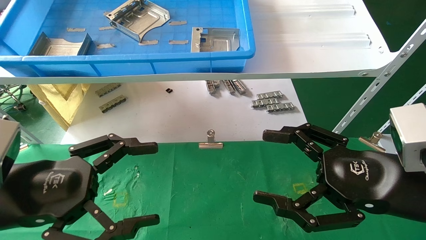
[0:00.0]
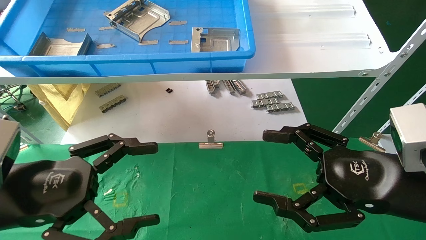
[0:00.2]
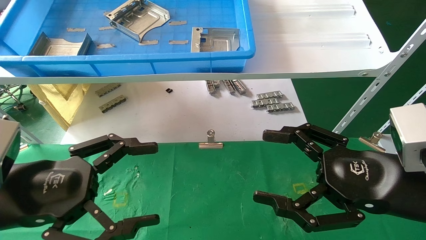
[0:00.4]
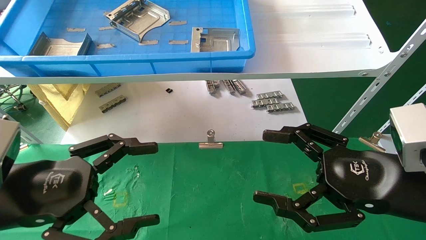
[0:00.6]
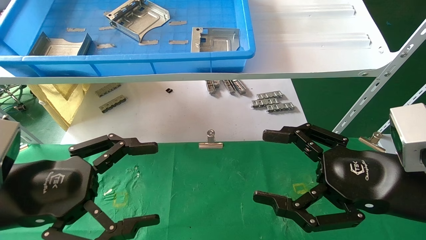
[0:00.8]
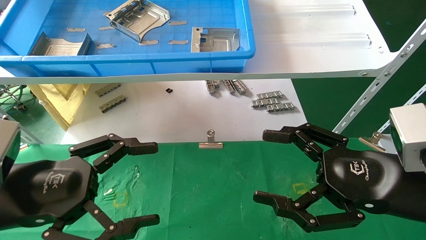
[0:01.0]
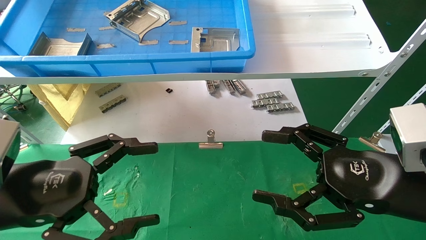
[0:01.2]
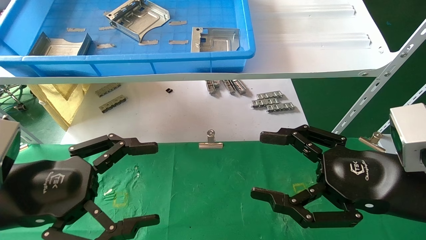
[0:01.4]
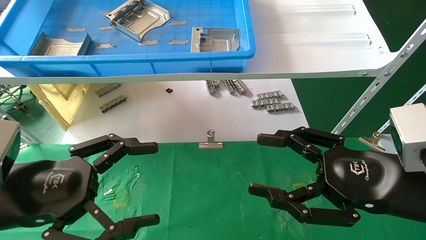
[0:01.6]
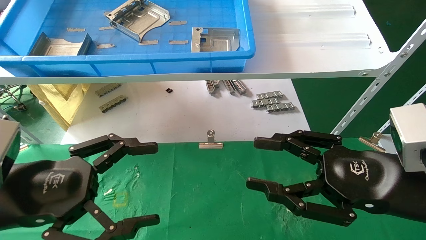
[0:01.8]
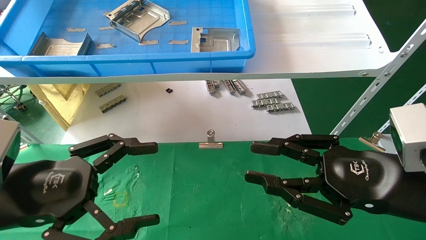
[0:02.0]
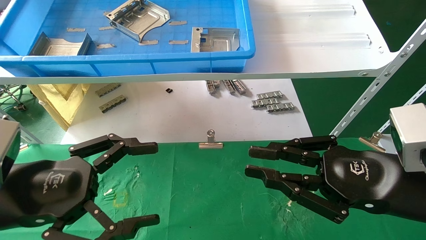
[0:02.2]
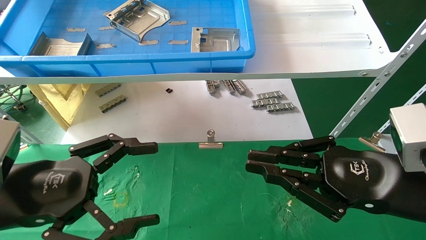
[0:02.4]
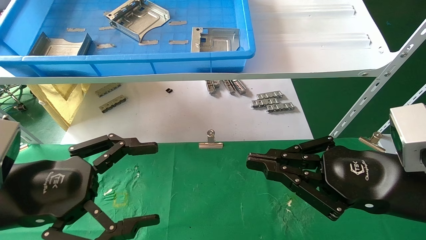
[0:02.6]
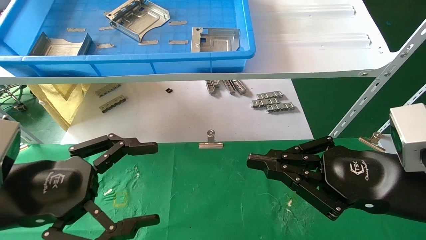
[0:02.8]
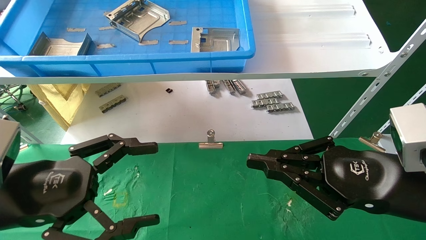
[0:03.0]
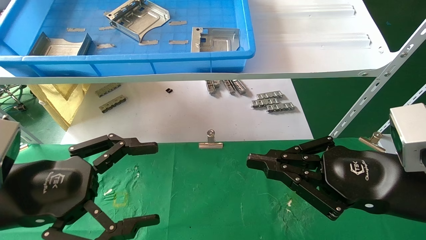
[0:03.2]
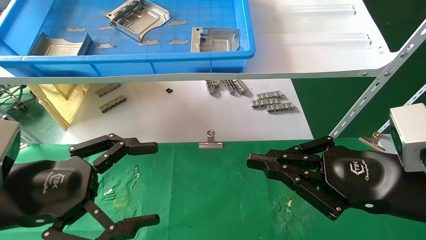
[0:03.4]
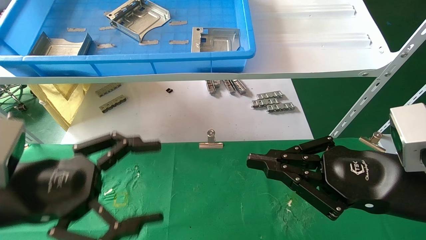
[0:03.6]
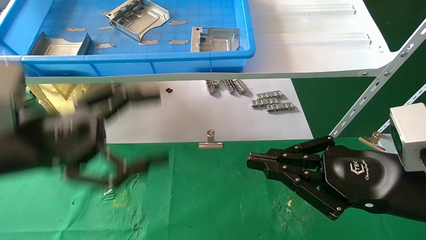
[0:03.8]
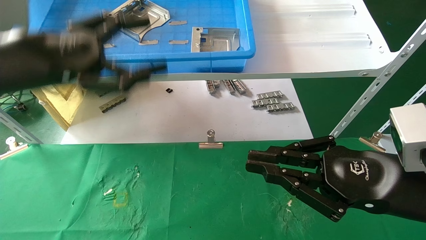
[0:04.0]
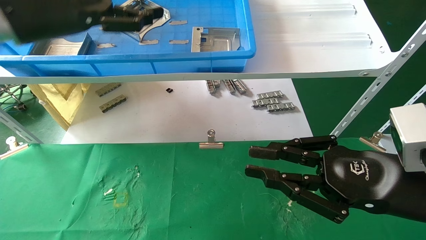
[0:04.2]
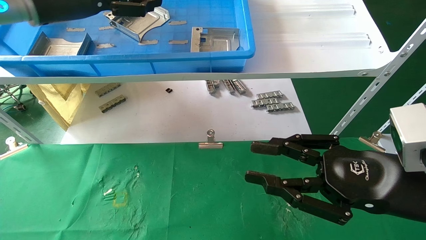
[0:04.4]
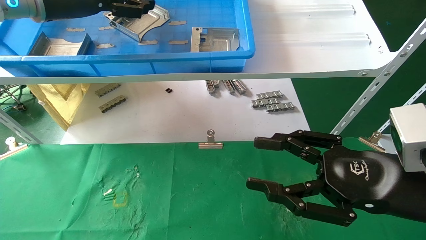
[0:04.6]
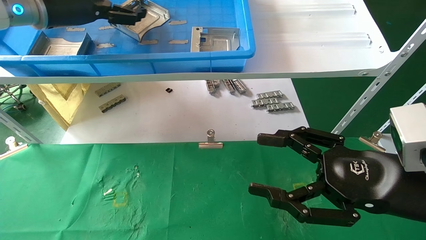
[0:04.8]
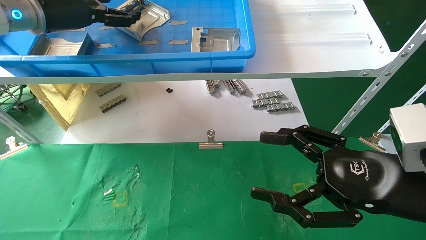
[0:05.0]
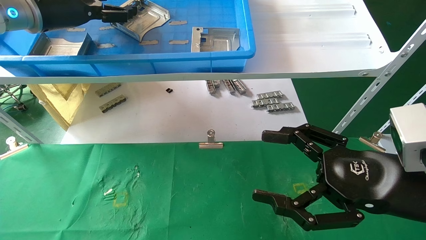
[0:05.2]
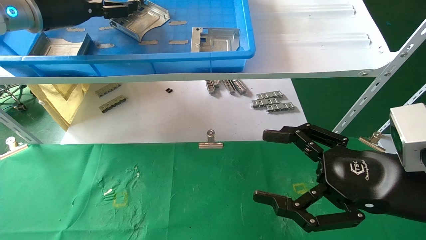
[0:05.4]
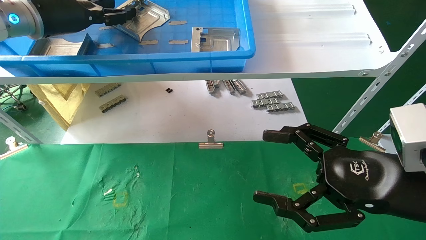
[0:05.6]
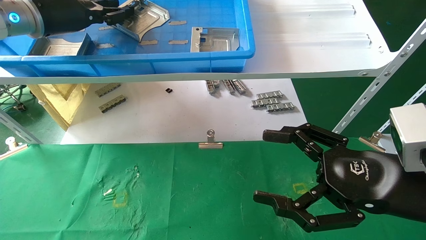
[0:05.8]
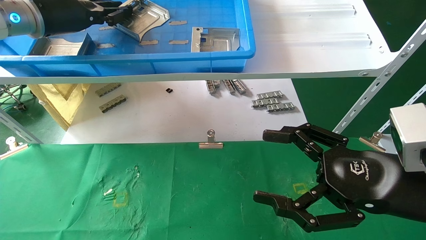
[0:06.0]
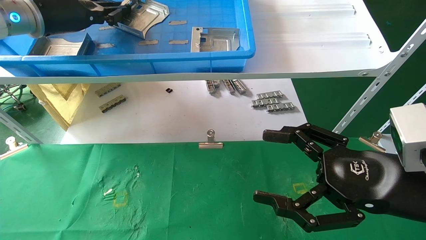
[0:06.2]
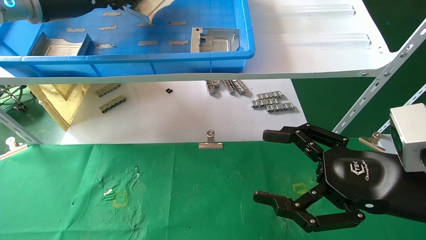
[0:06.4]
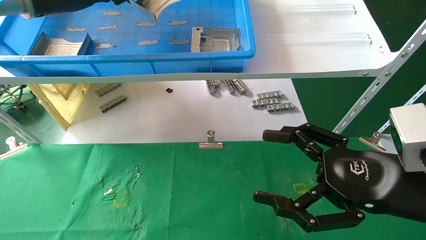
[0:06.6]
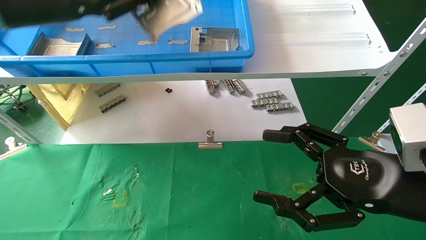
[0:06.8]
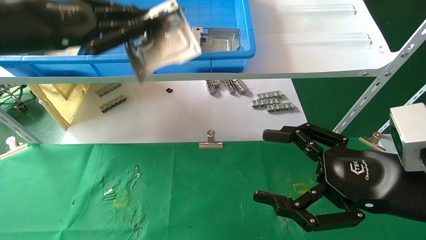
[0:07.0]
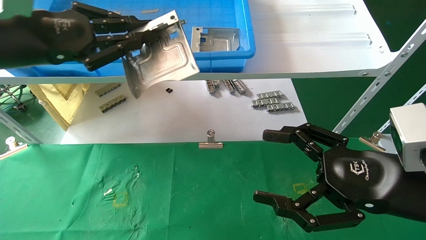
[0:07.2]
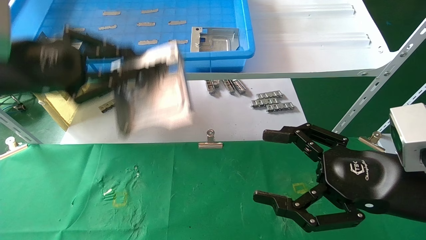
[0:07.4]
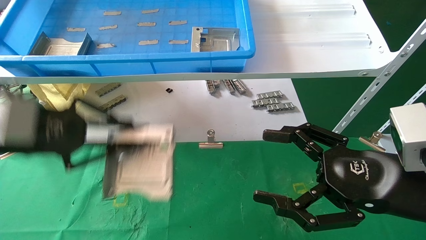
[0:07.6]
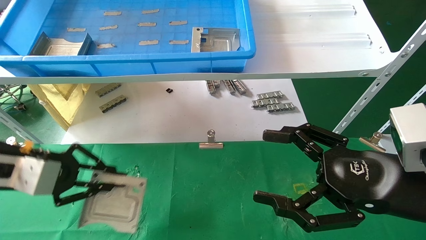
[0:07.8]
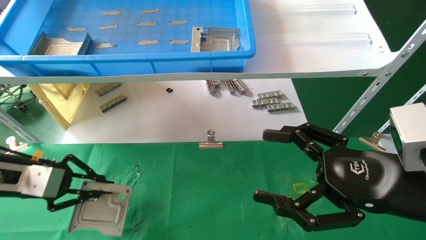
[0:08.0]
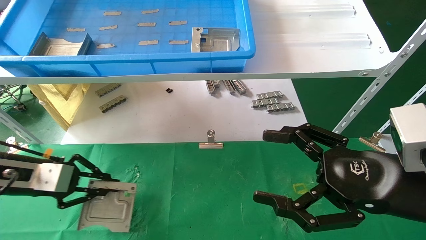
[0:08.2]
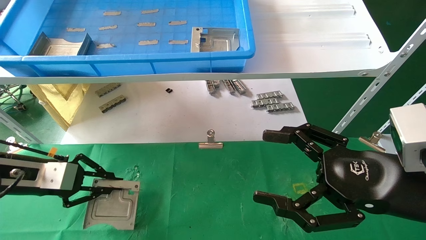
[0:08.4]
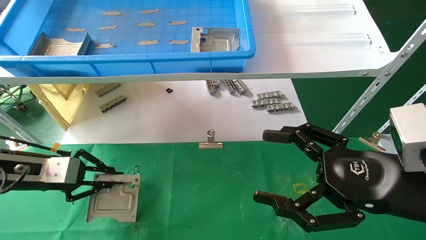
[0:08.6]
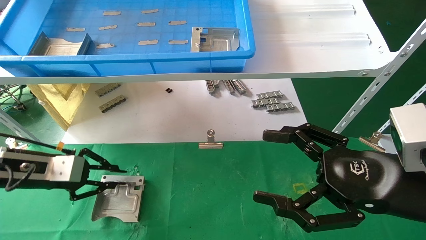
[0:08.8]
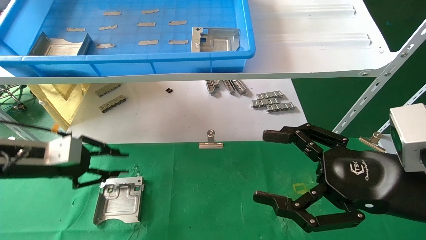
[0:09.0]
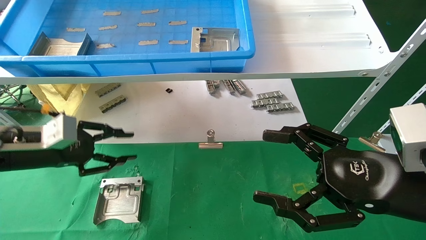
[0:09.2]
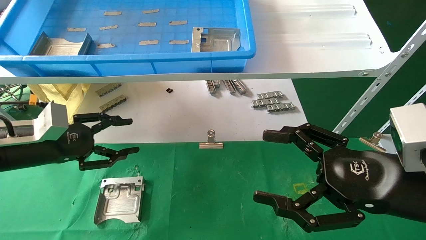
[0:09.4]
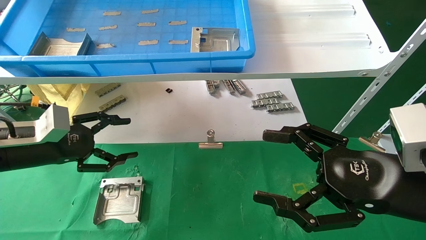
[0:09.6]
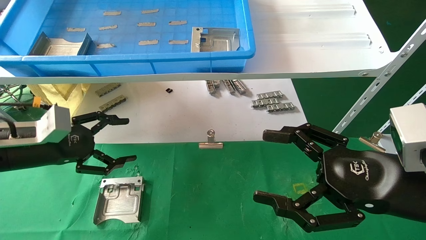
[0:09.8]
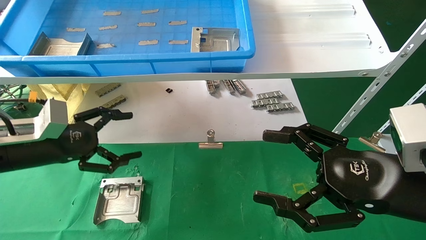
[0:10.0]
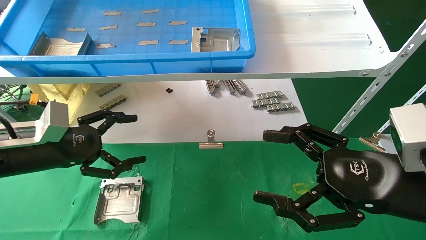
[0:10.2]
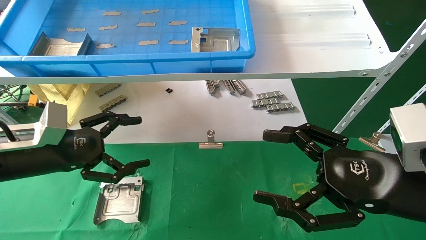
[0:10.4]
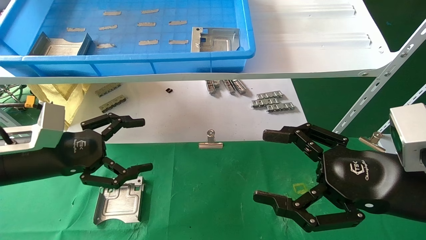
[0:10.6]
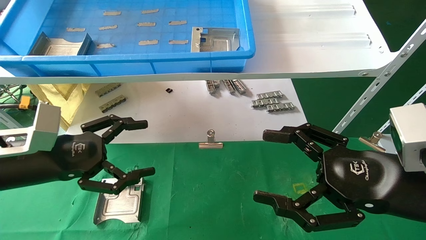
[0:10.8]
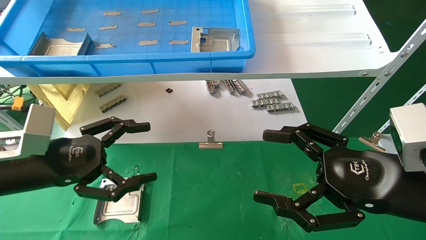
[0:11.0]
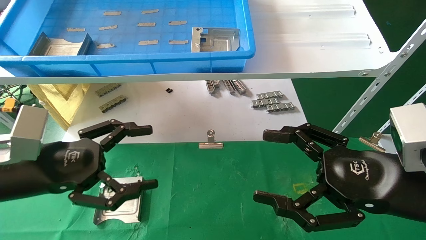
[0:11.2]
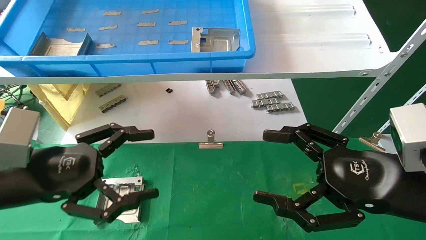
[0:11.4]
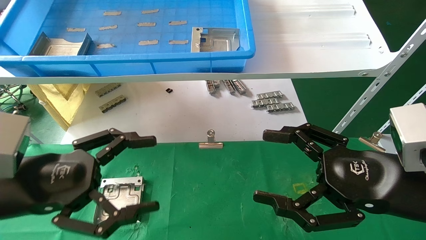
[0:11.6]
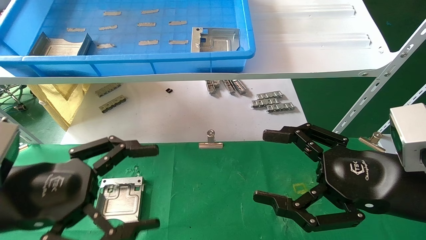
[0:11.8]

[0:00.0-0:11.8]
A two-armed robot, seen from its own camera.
Task of the whole recording: use the mechanical arm to pick up the parts and place them on the table.
Step, 0:03.8 to 0:06.2: Pick up the hard drive bracket from the feeding area.
Step, 0:06.4 to 0:09.0: Place the hard drive bracket into the box.
0:00.0 to 0:01.4: Both grippers stay put.
0:01.4 to 0:03.0: The right gripper closes its fingers.
0:03.0 to 0:04.4: The left gripper is displaced upward and forward by some 30 cm.
0:04.4 to 0:06.0: The right gripper opens up. The left gripper closes its fingers.
0:06.0 to 0:07.4: The left gripper shifts about 15 cm backward and downward.
0:07.4 to 0:08.8: The left gripper goes some 15 cm downward and forward.
0:08.8 to 0:10.4: The left gripper moves roughly 5 cm, and opens up.
0:10.4 to 0:11.8: The left gripper shifts about 10 cm backward.

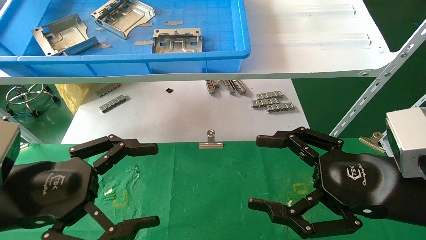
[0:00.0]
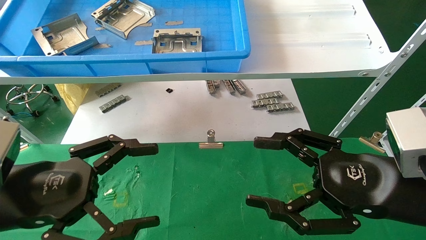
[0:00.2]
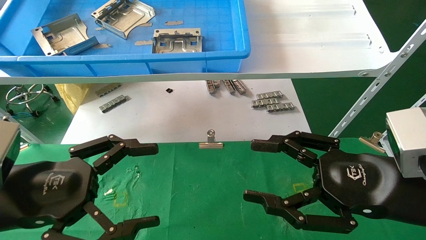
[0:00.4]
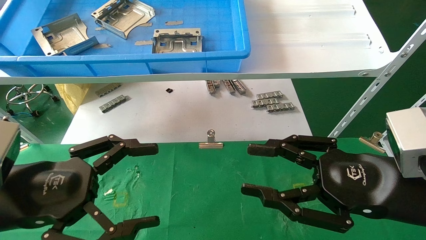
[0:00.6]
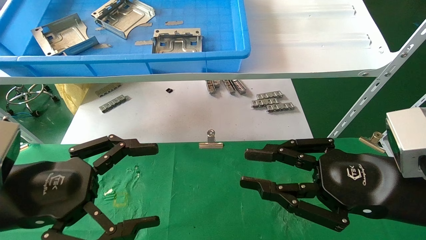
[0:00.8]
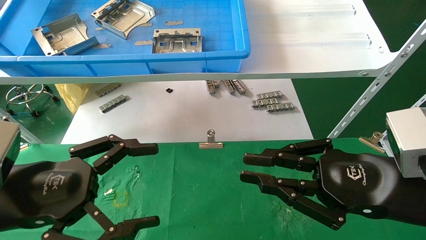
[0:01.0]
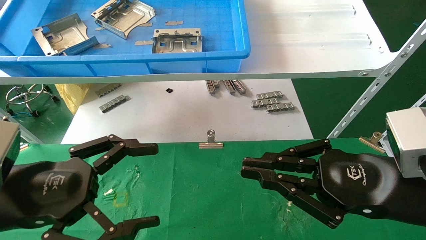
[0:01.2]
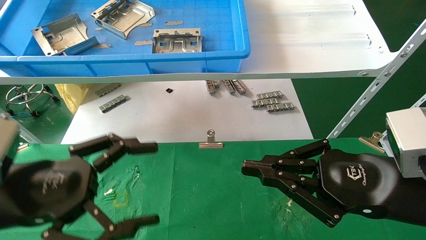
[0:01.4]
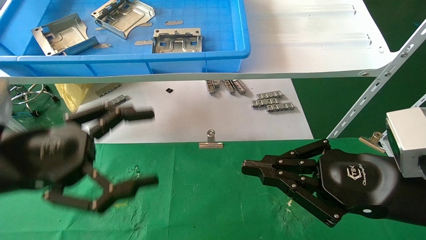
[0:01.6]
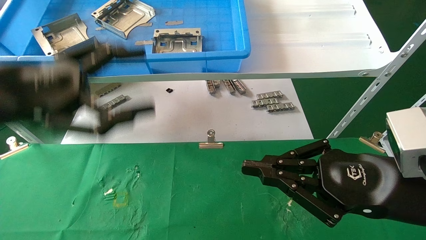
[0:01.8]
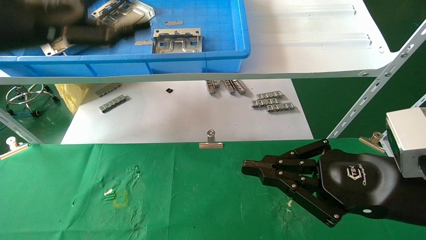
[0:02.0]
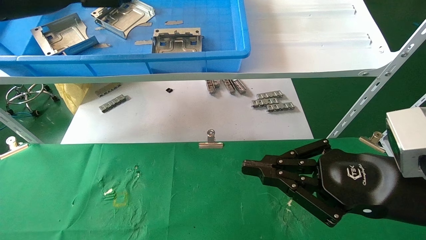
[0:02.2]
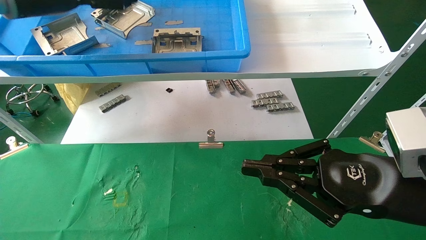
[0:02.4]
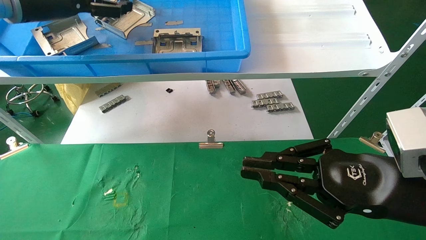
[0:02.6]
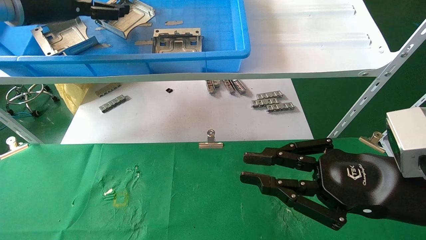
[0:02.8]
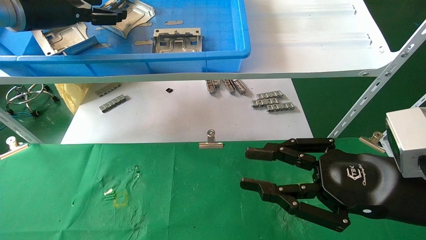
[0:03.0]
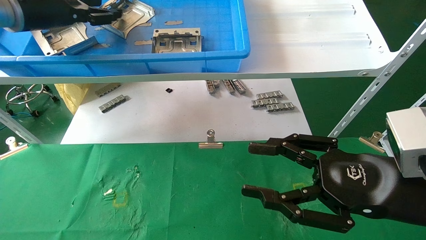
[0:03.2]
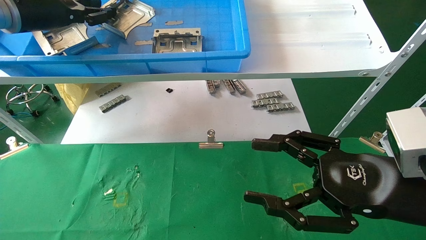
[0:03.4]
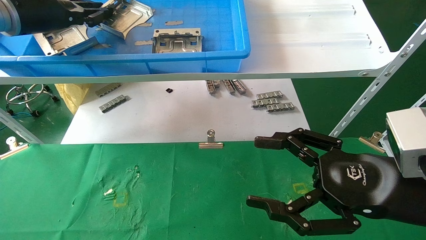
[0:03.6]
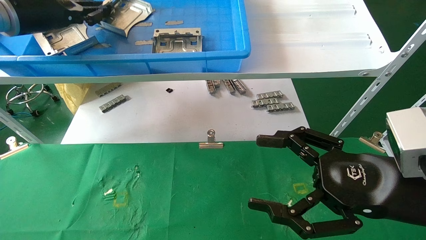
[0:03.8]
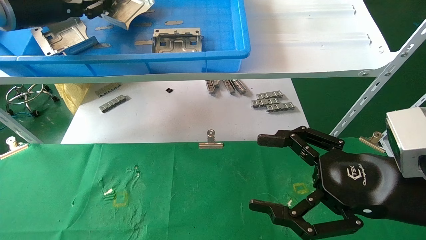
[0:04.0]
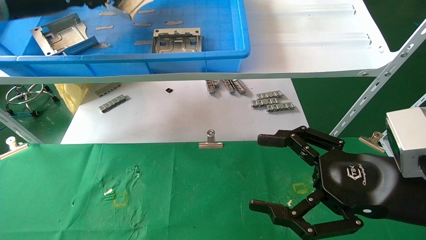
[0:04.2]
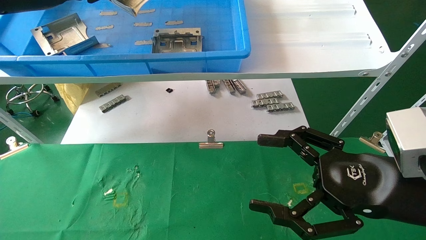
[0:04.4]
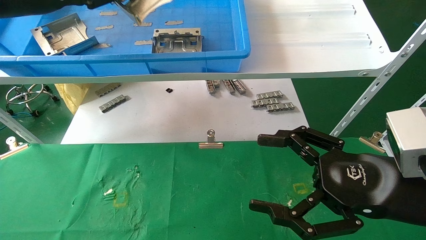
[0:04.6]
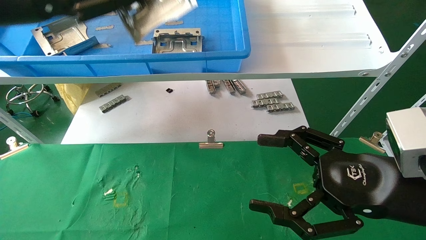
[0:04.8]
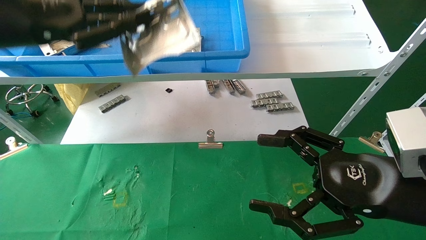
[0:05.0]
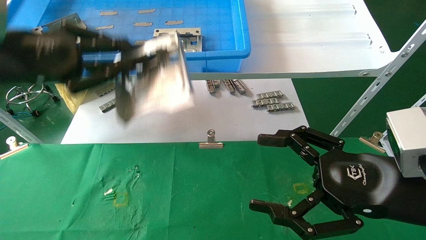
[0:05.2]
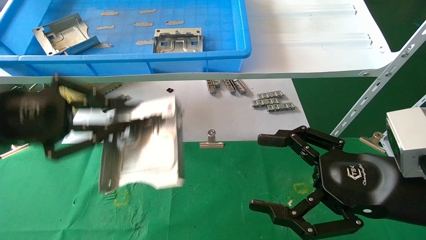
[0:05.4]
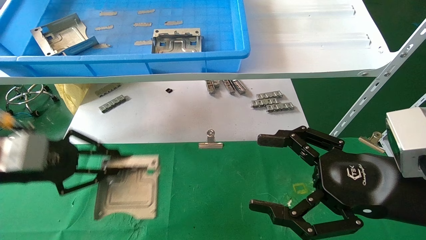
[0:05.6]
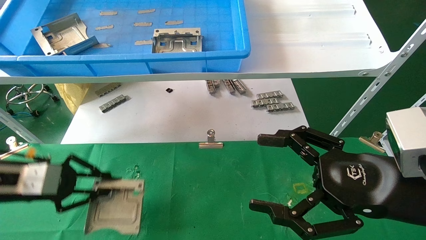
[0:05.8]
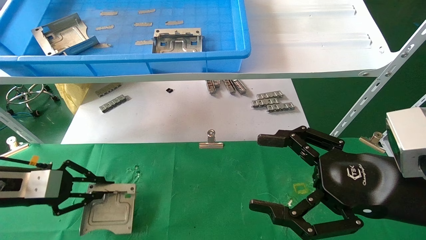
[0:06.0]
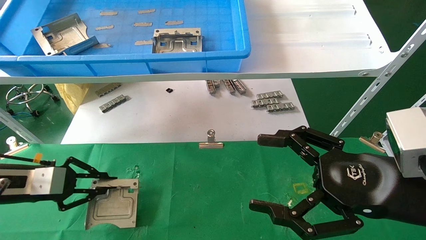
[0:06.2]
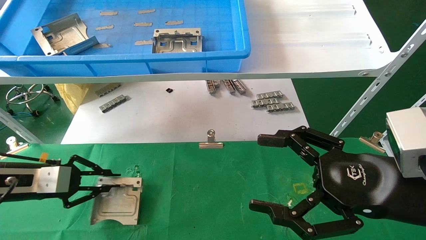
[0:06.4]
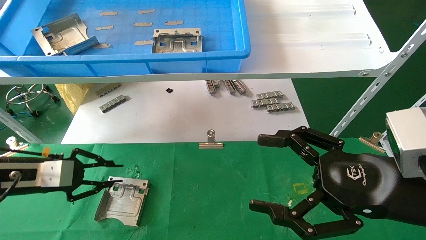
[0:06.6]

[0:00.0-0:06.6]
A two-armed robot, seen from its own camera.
Task of the whole recording: use the mechanical arm to pick up the parts and place them on the table.
Step, 0:01.6 to 0:03.8: Pick up the hard drive bracket from the feeding area.
Step, 0:04.0 to 0:06.6: Place the hard drive bracket into the box.
0:00.0 to 0:01.6: The right gripper closes its fingers. The left gripper is displaced upward by some 5 cm.
0:01.6 to 0:03.2: The left gripper moves forward and upward, approximately 25 cm, and closes its fingers; the right gripper opens up.
0:03.2 to 0:05.0: The left gripper is displaced backward by roughly 10 cm, and closes up. The right gripper opens up.
0:05.0 to 0:06.6: The left gripper goes about 25 cm downward.
